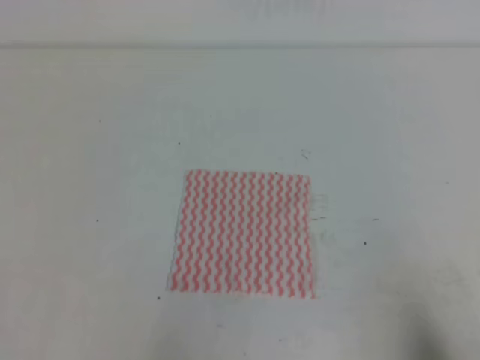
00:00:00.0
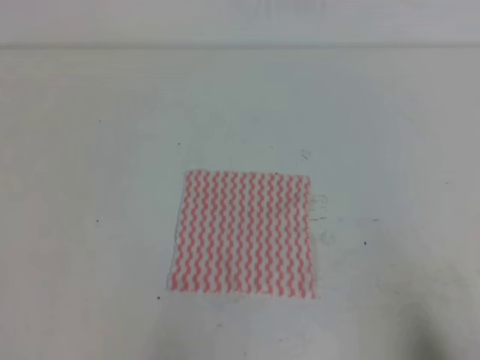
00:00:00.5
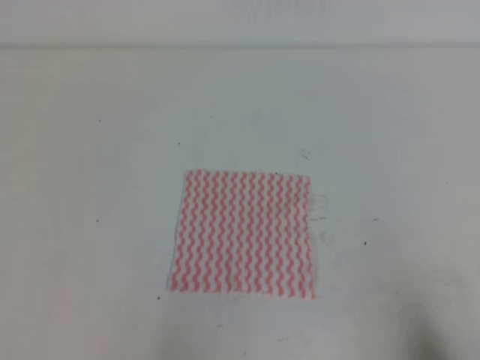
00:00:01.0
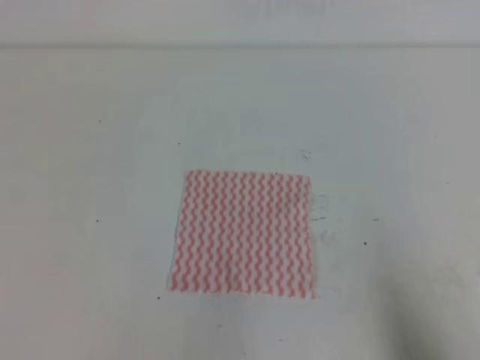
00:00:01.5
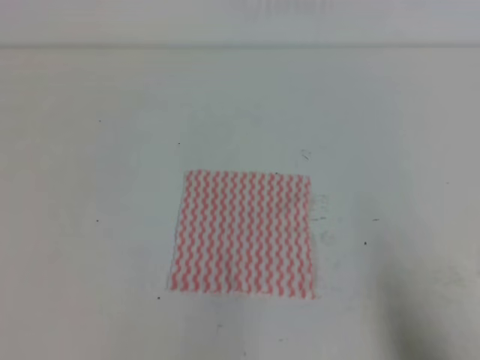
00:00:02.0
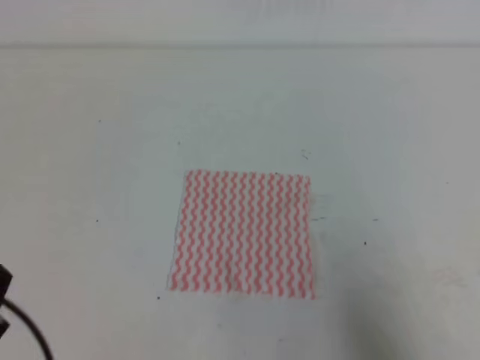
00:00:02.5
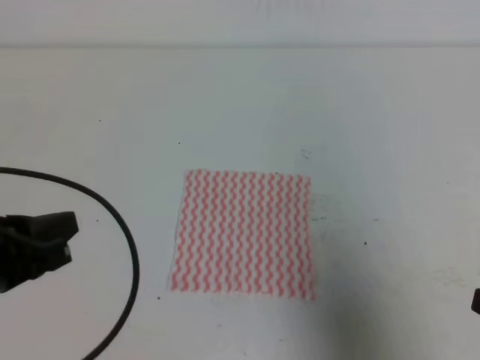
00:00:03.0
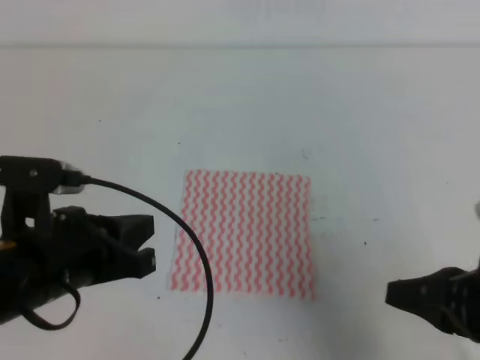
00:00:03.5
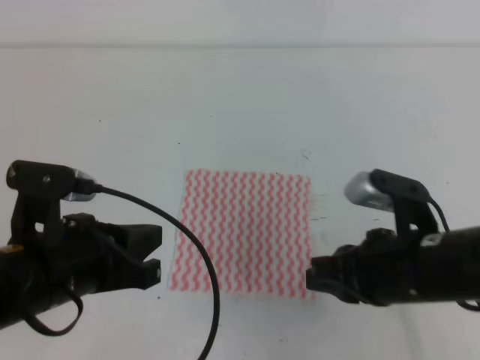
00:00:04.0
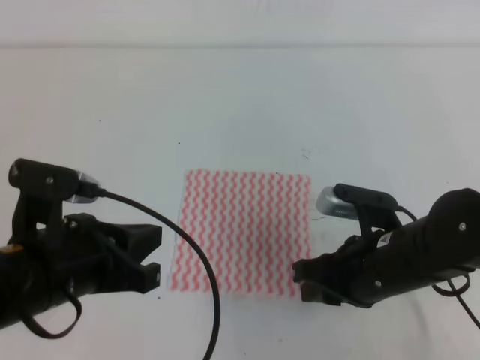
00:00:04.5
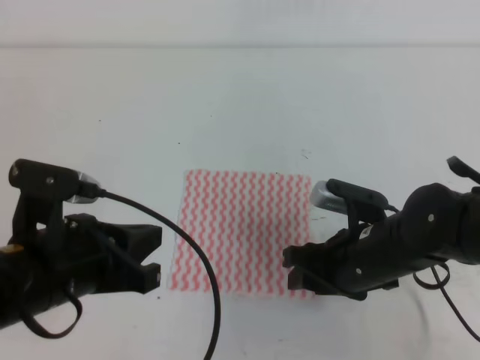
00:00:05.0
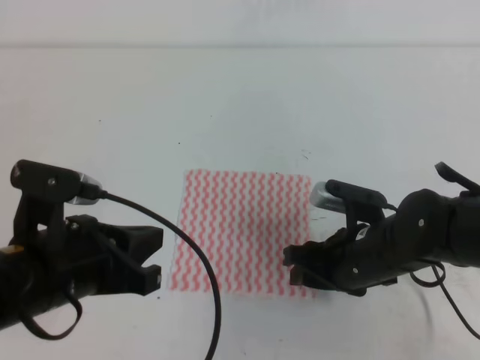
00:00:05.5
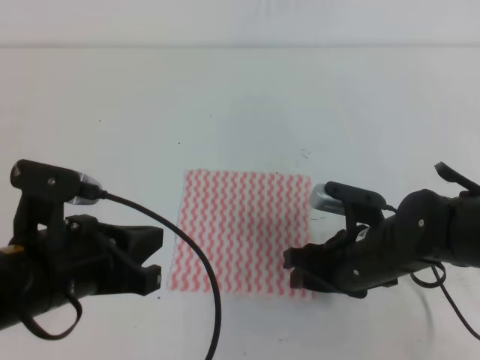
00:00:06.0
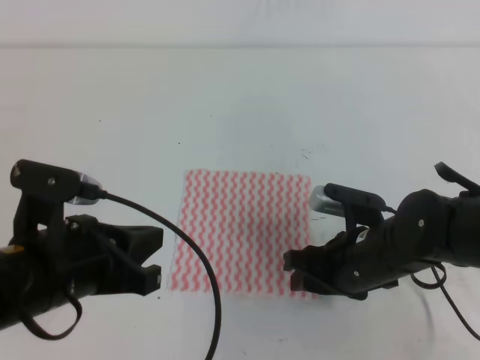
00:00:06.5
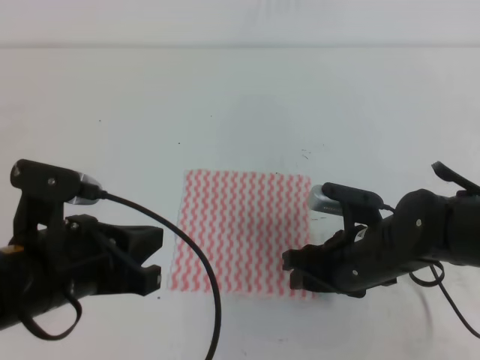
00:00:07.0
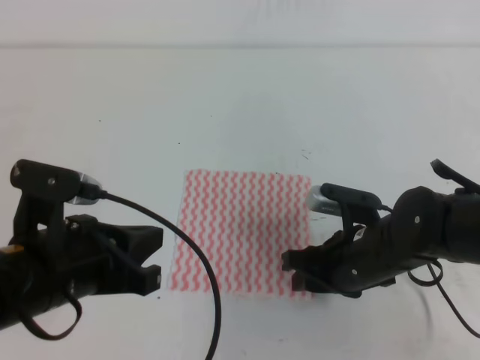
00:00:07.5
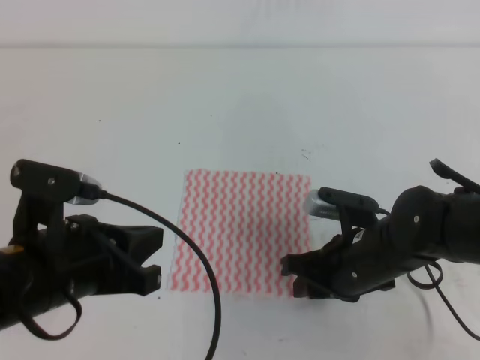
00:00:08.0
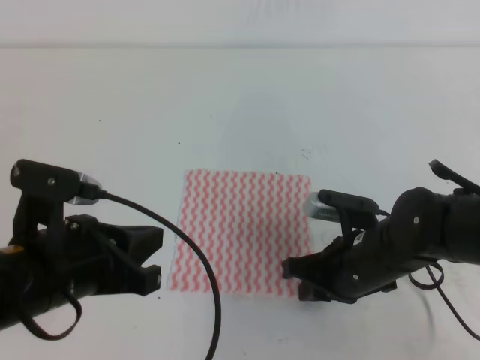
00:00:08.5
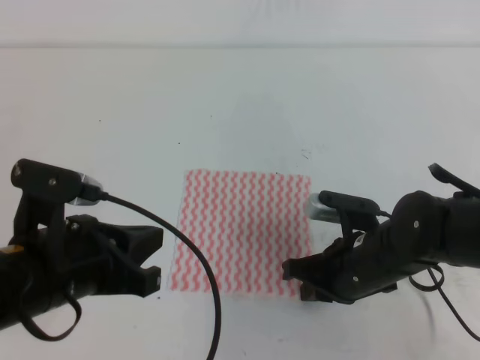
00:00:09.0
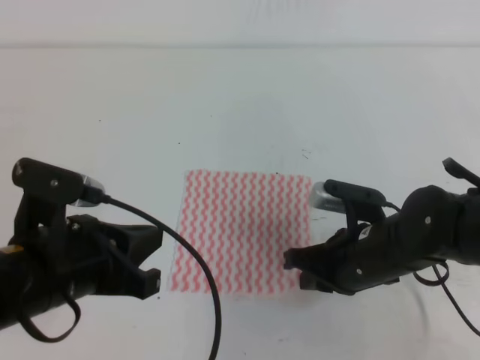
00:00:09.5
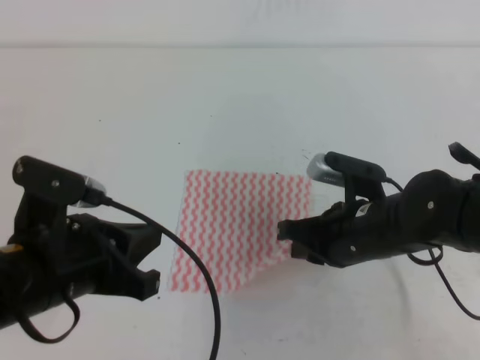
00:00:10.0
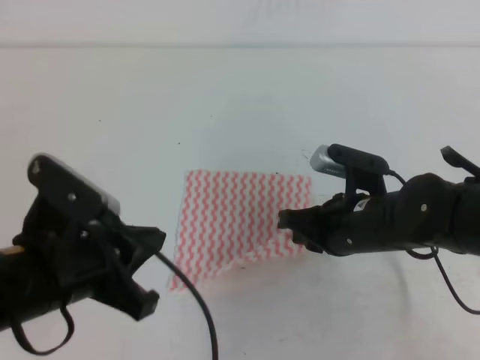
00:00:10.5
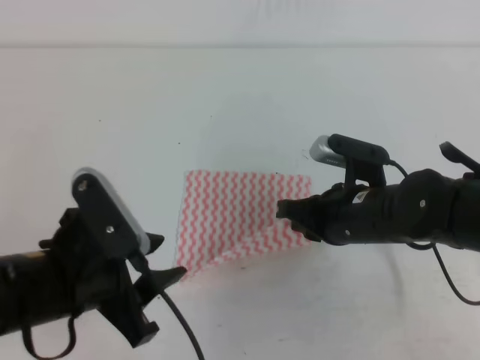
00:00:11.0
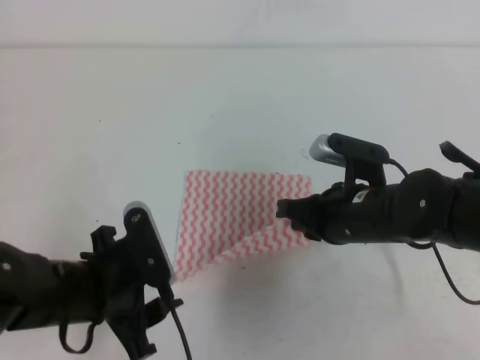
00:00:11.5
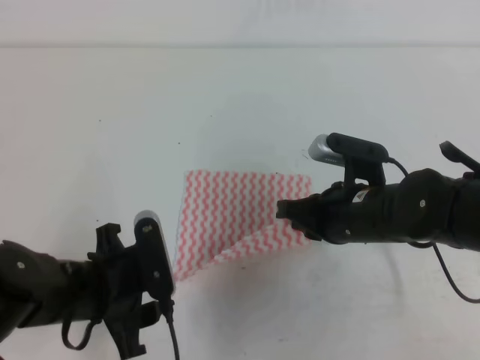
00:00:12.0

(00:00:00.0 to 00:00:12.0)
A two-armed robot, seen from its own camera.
00:00:02.0 - 00:00:04.0: The left gripper moves forward, to the right and upward, some 15 cm, while the right gripper shifts approximately 20 cm to the left and forward.
00:00:04.0 - 00:00:06.0: The right gripper heads downward and forward, covering some 10 cm, and opens up.
00:00:06.0 - 00:00:08.0: The right gripper closes its fingers.
00:00:08.0 - 00:00:10.0: The right gripper closes.
00:00:10.0 - 00:00:12.0: The left gripper heads downward, covering approximately 10 cm, and opens its fingers.

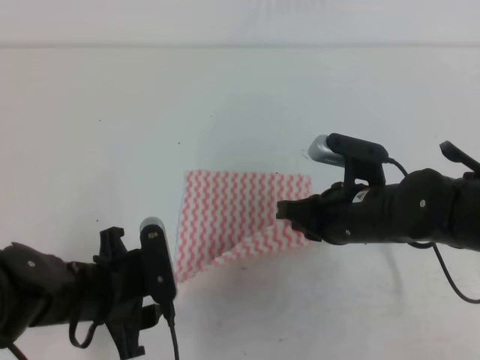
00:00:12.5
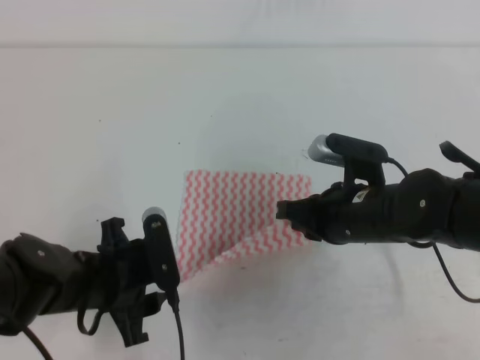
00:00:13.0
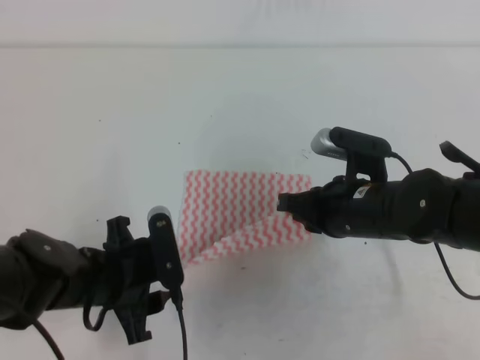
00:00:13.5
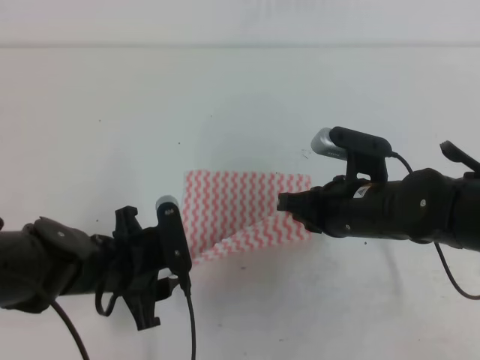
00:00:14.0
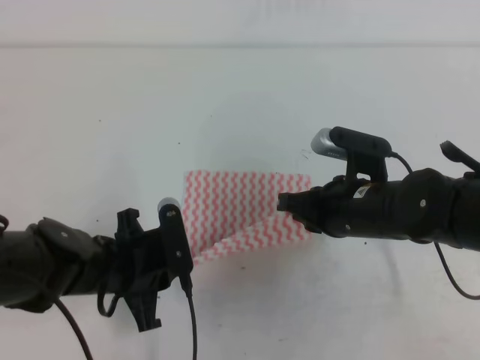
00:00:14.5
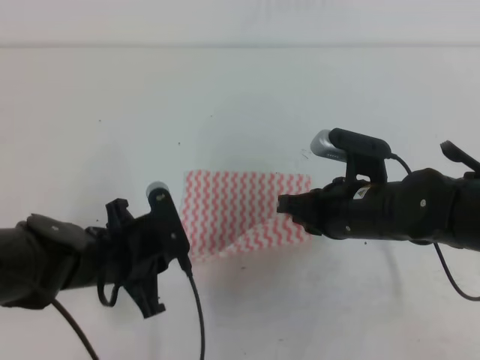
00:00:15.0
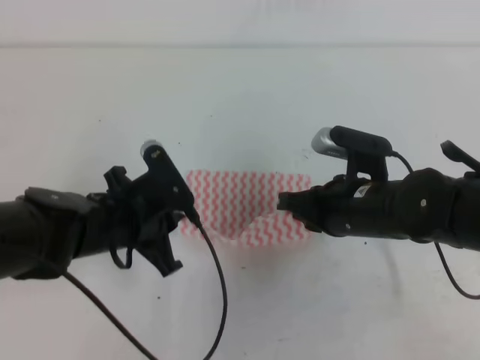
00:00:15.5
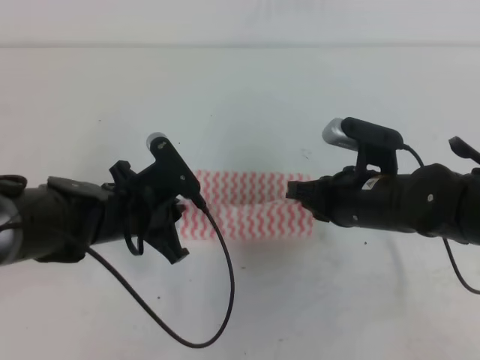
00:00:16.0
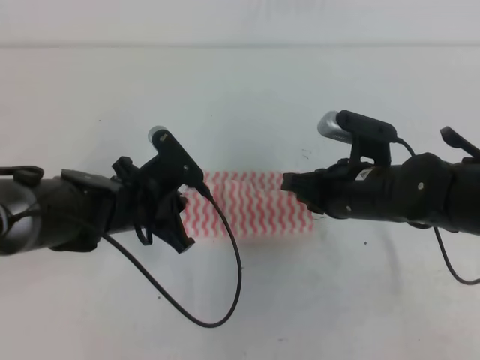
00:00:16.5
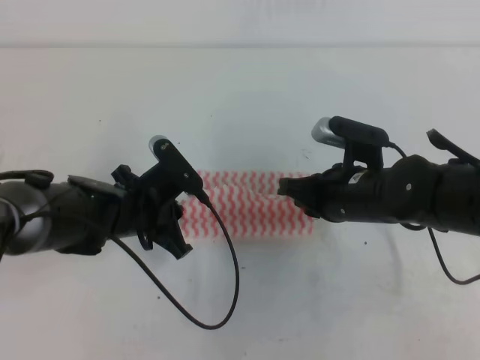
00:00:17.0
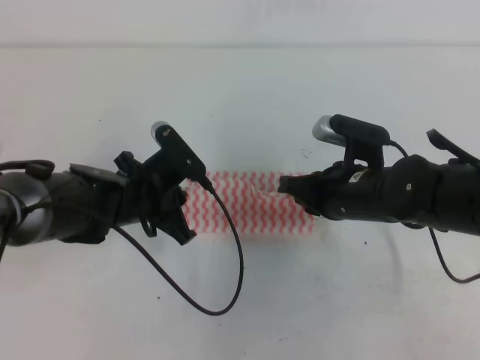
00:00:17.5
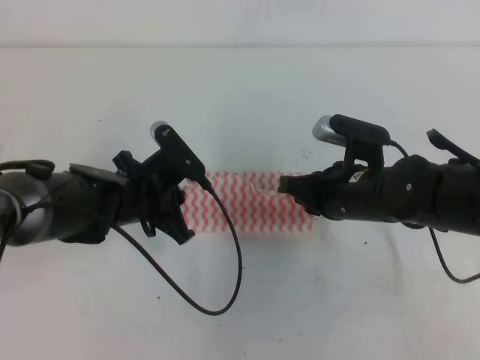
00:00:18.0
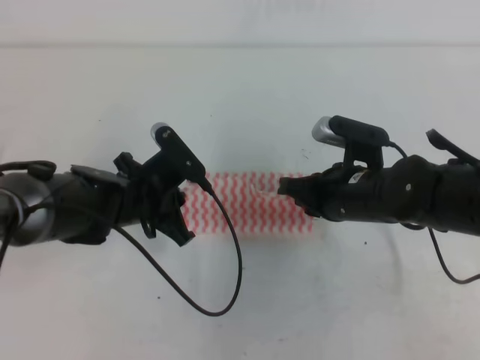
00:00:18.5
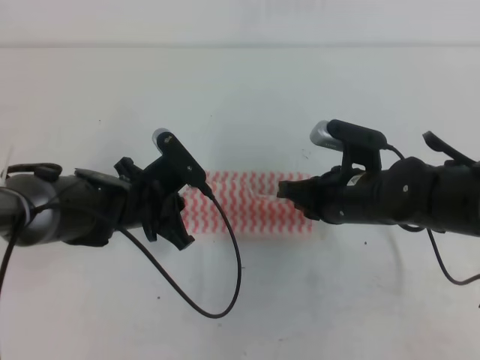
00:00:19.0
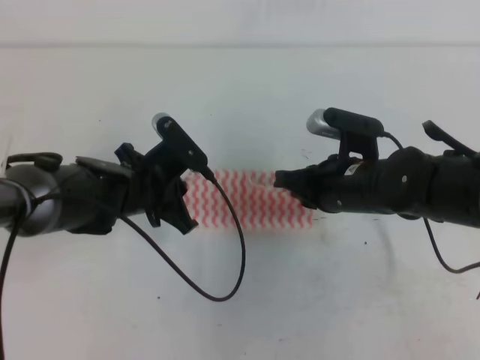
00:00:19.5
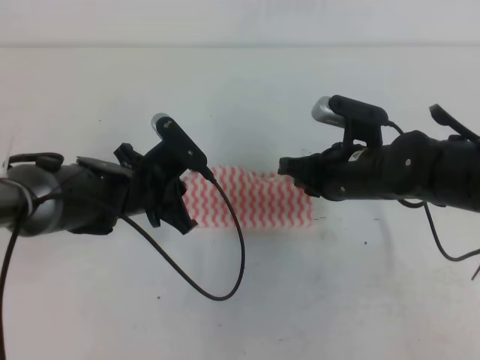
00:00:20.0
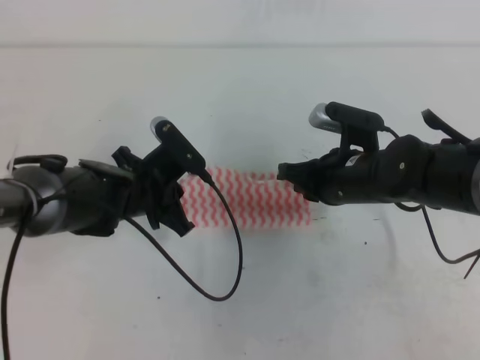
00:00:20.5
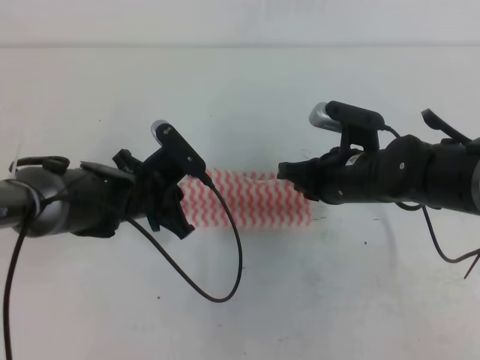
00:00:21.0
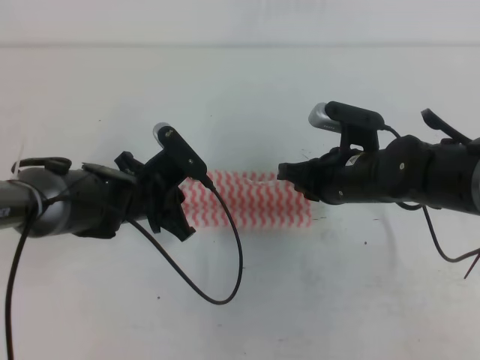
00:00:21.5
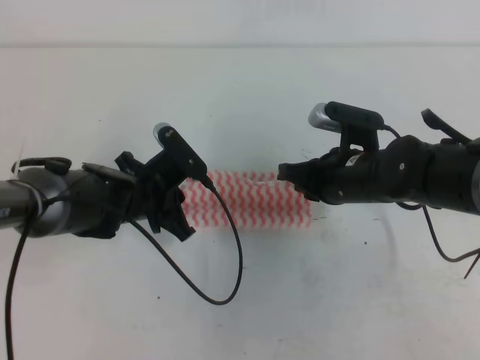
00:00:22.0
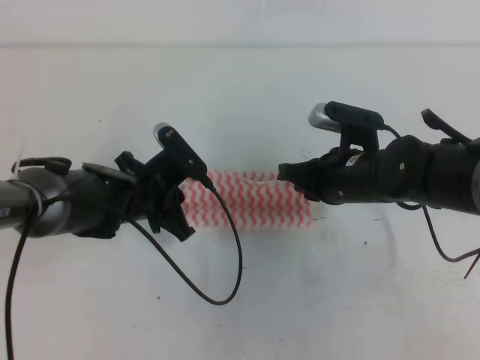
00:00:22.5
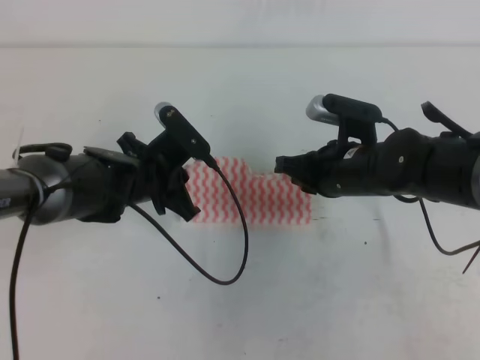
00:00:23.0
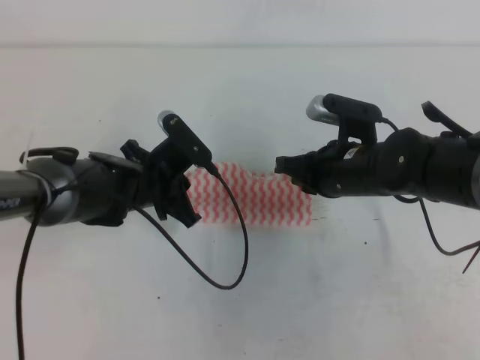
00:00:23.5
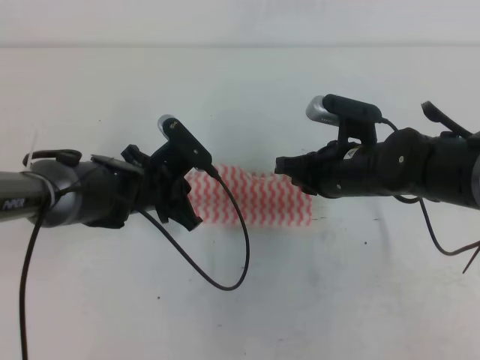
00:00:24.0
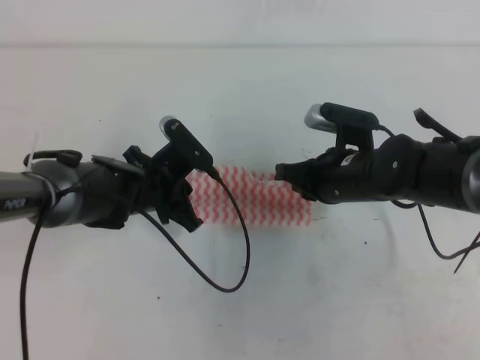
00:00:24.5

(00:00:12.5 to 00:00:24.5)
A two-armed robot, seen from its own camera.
00:00:12.5 - 00:00:14.5: The left gripper closes up.
00:00:14.5 - 00:00:16.5: The left gripper moves forward, some 5 cm.
00:00:16.5 - 00:00:20.5: The grippers move only a little.
00:00:20.5 - 00:00:22.5: Both grippers stay put.
00:00:22.5 - 00:00:24.5: The grippers make only small movements.

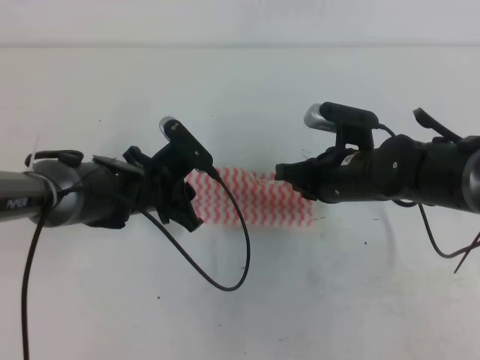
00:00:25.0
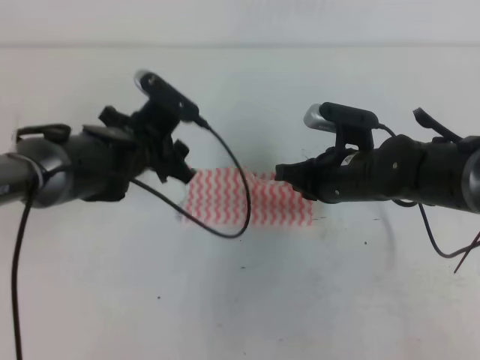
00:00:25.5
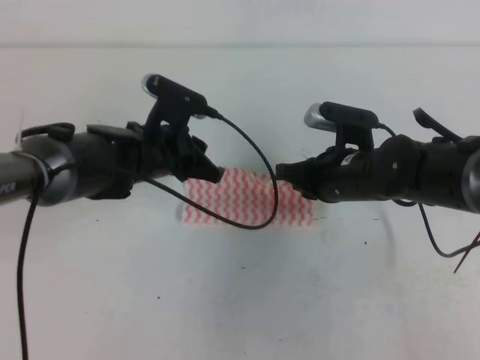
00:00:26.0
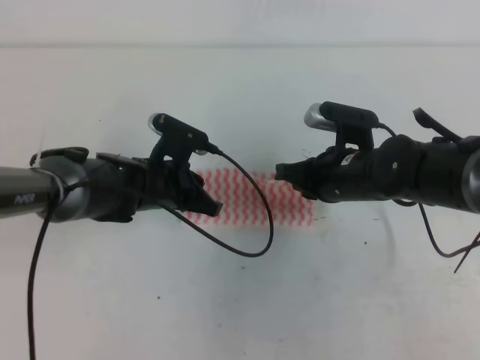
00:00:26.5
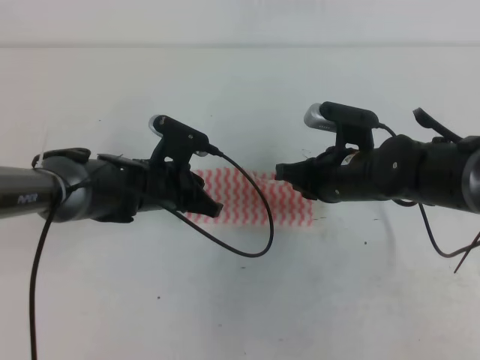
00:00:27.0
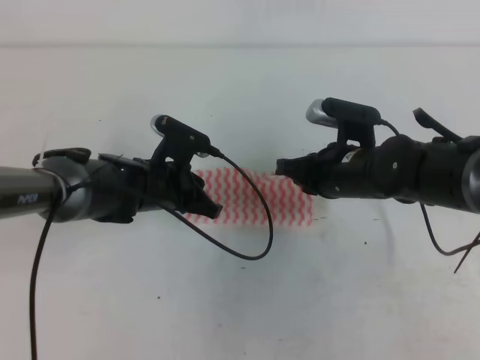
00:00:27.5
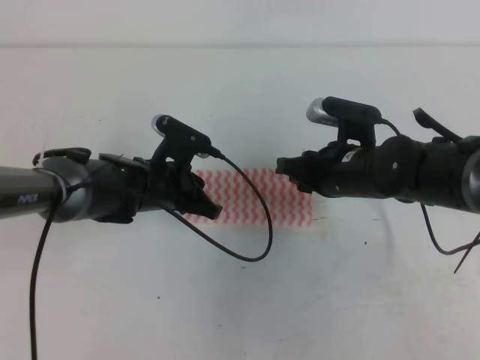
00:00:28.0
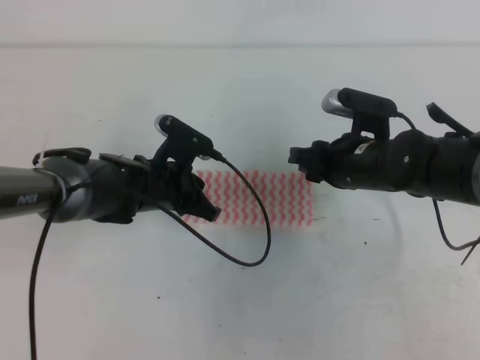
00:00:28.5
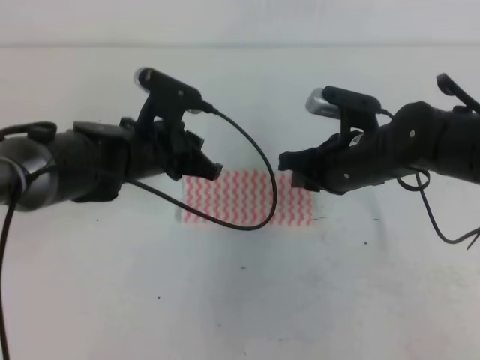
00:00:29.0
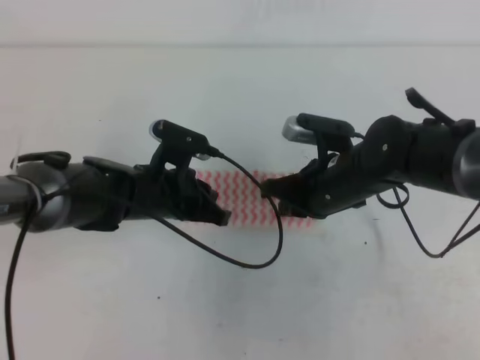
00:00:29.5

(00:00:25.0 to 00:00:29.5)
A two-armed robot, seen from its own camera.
00:00:25.0 - 00:00:27.0: The left gripper closes up.
00:00:27.0 - 00:00:29.5: The right gripper opens and closes again.
